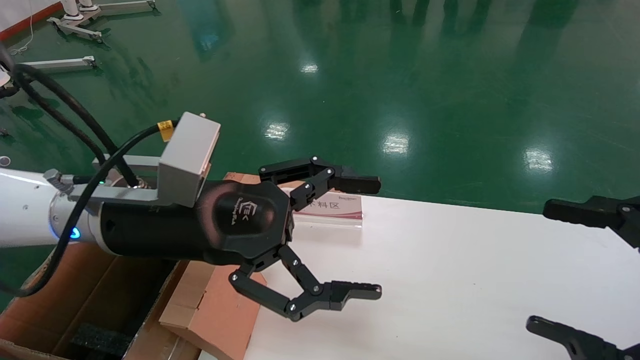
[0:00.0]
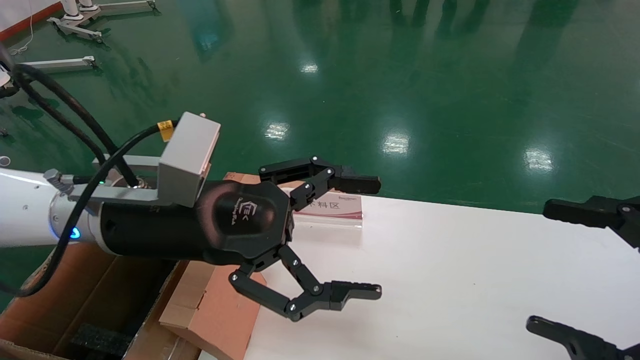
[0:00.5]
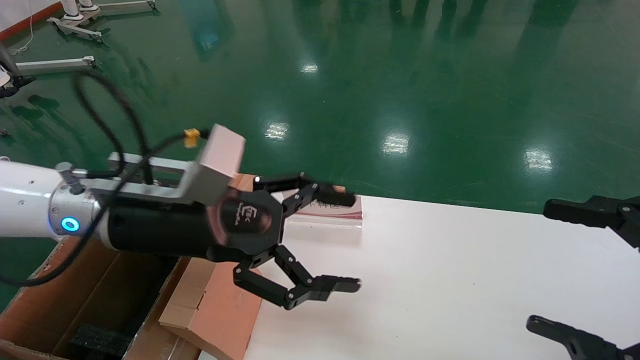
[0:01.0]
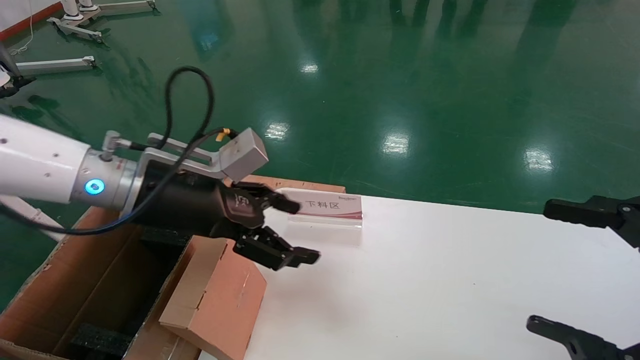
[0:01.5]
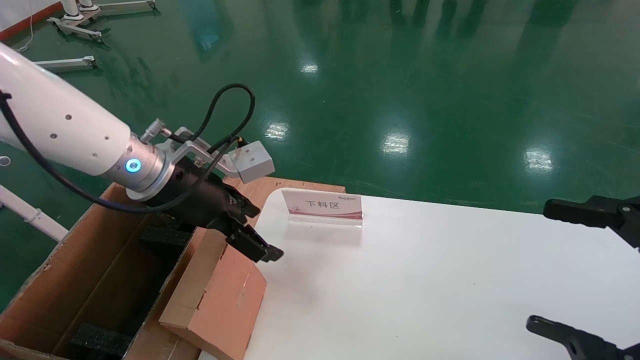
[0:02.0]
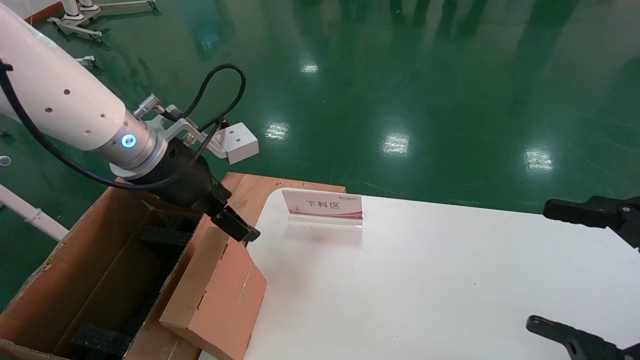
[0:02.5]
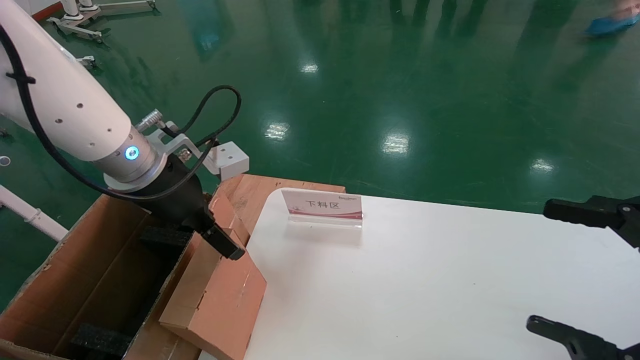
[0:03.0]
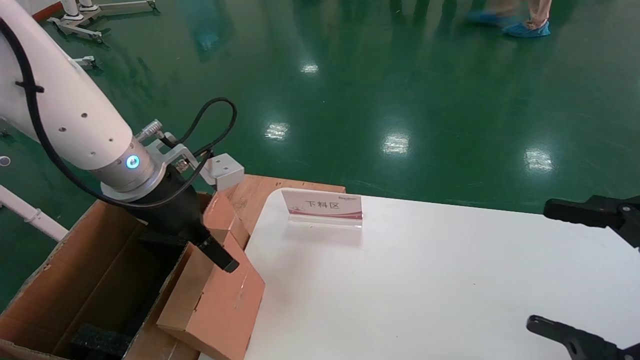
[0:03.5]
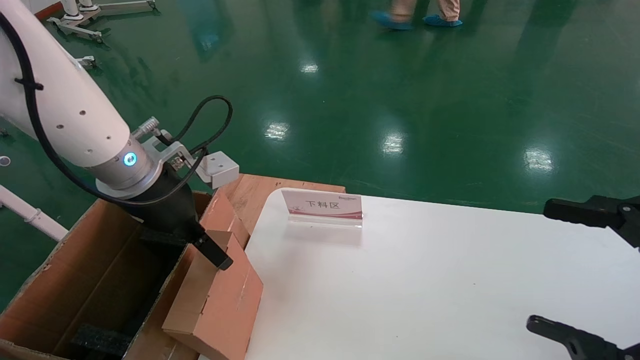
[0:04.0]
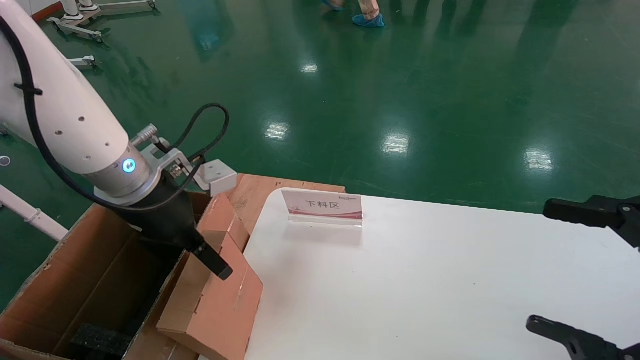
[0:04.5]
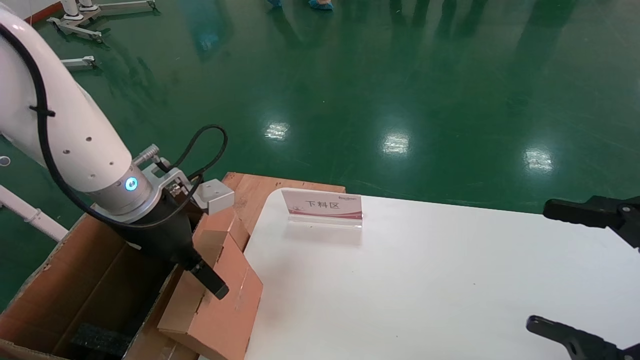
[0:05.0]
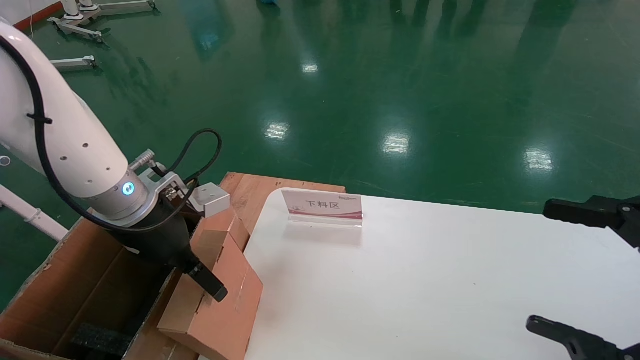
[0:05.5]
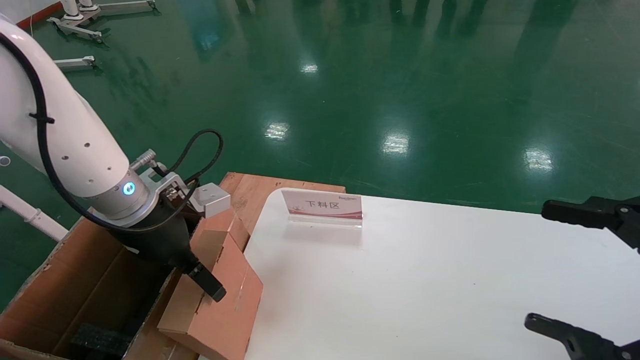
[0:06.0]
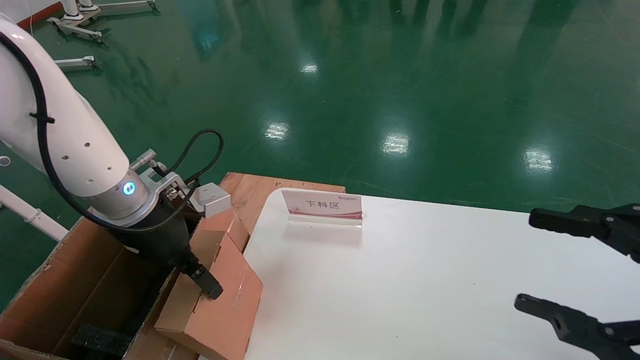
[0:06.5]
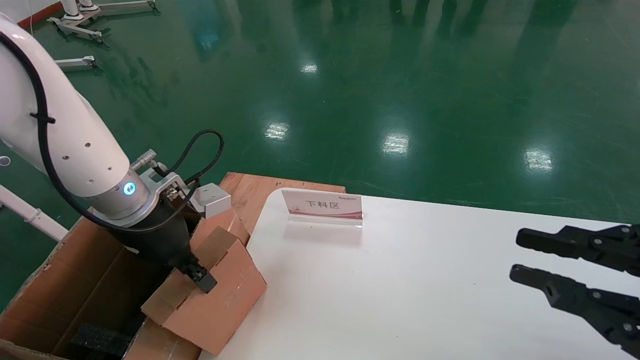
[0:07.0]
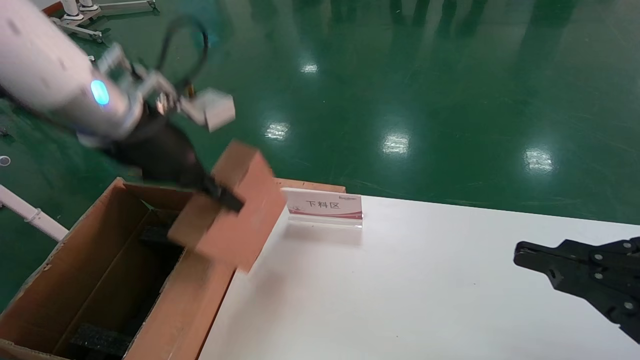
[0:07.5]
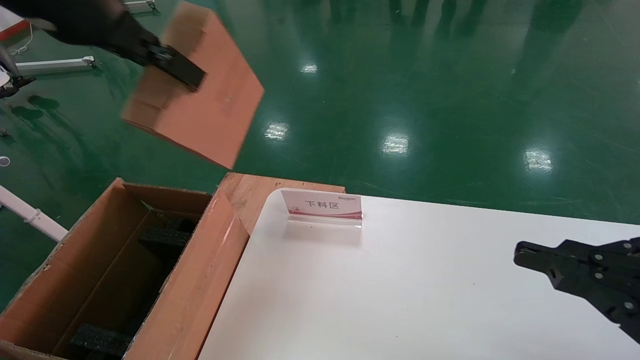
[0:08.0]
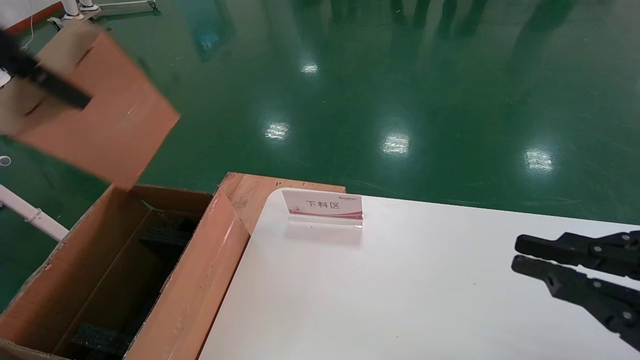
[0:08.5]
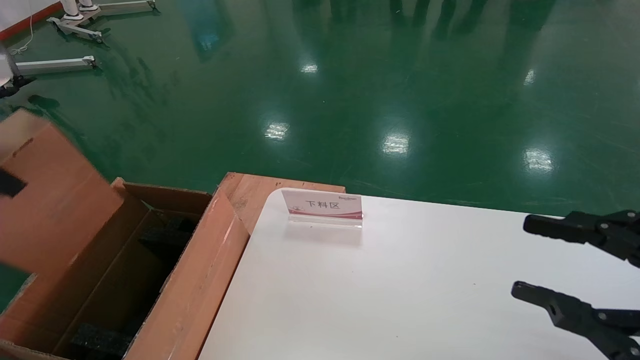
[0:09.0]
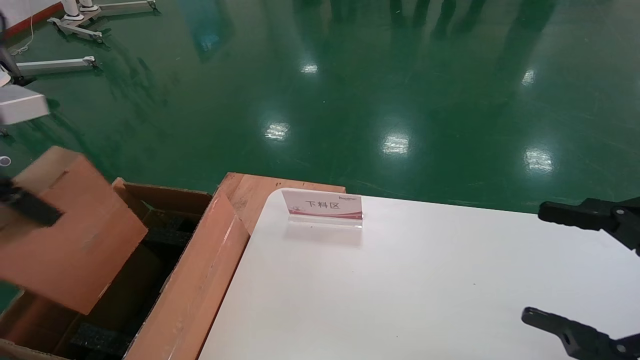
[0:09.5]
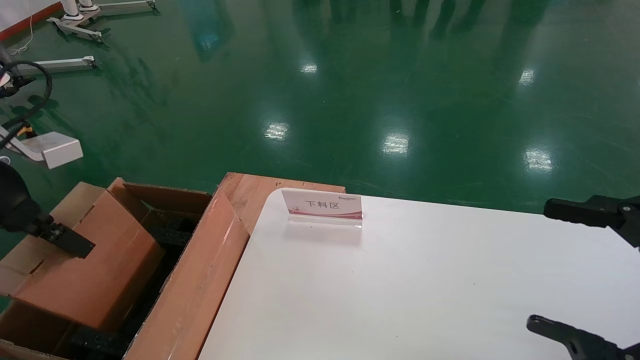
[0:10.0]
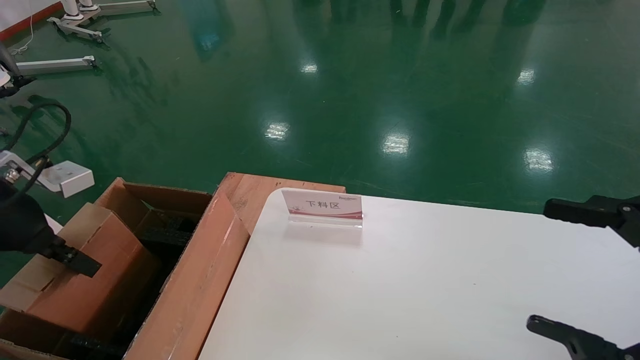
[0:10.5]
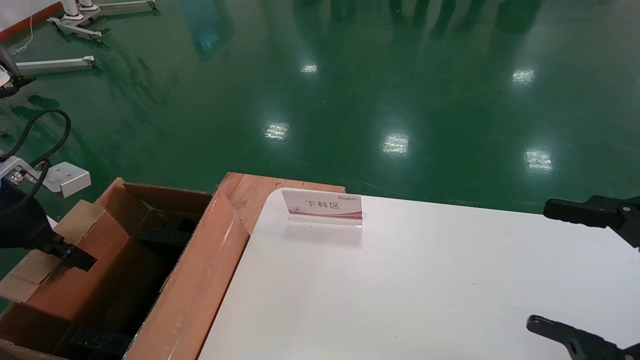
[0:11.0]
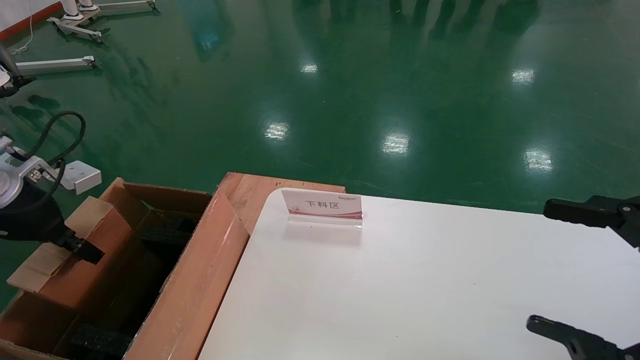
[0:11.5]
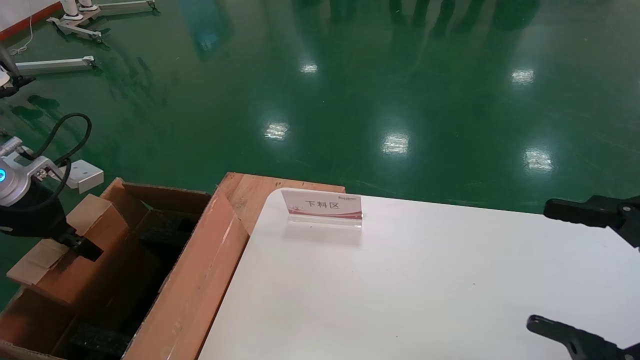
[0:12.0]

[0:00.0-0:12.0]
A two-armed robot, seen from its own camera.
Task of the whole recording: pick up the small cardboard box and load it into the large cardboard box.
Step, 0:01.5 to 0:06.5: Pick up the mouse and power cord box.
0:00.0 to 0:02.0: The left gripper goes about 10 cm forward.
0:04.0 to 0:06.0: The grippers move only a little.
0:06.0 to 0:08.0: The right gripper closes its fingers. The left gripper is displaced upward by roughly 25 cm, and closes.
0:08.0 to 0:10.0: The right gripper opens its fingers. The left gripper moves downward and to the left, approximately 20 cm.
0:10.0 to 0:12.0: The left gripper moves downward, forward and to the left, about 10 cm.

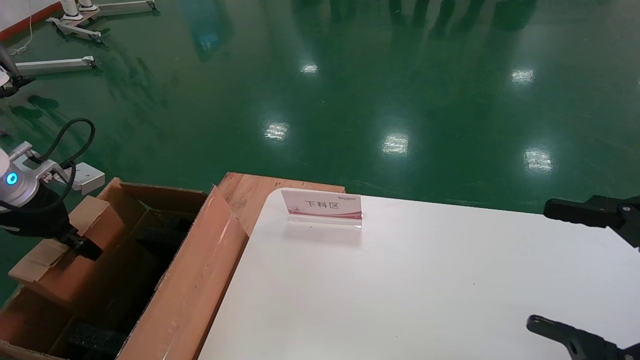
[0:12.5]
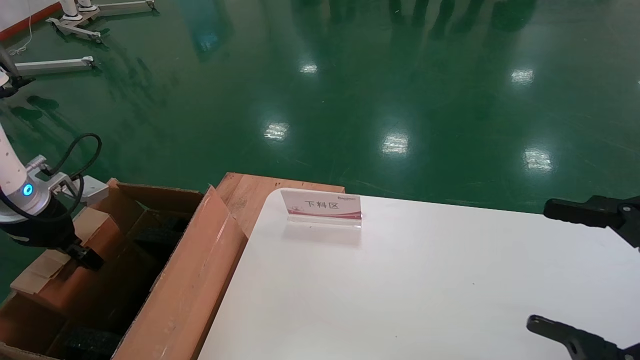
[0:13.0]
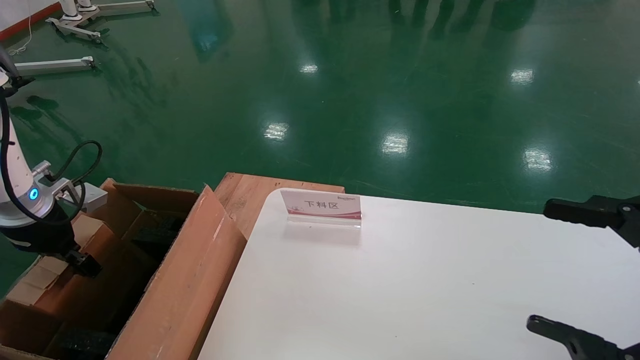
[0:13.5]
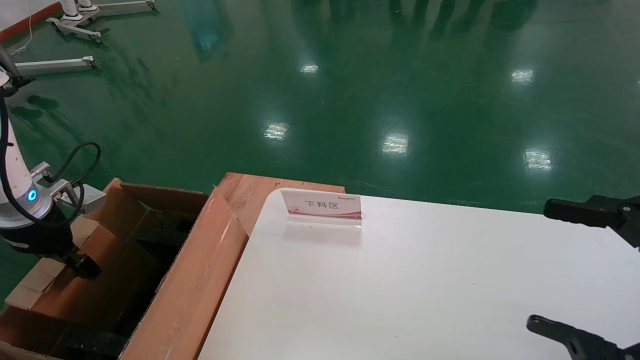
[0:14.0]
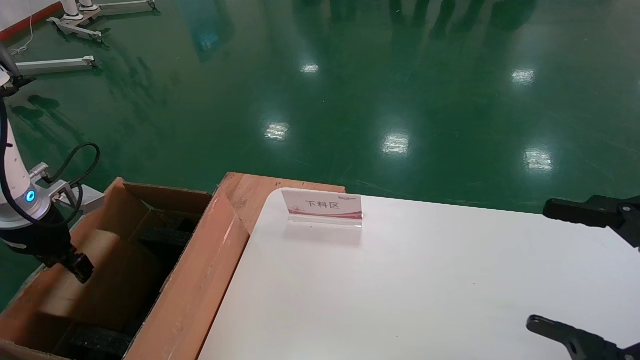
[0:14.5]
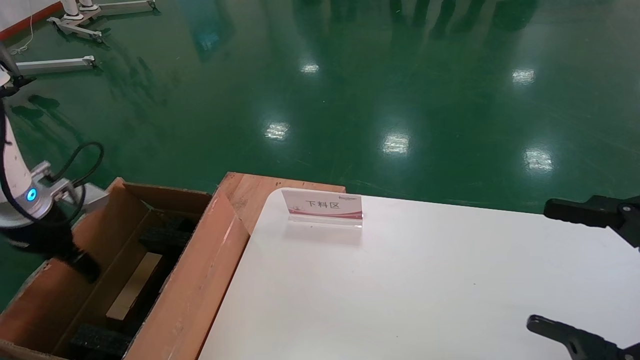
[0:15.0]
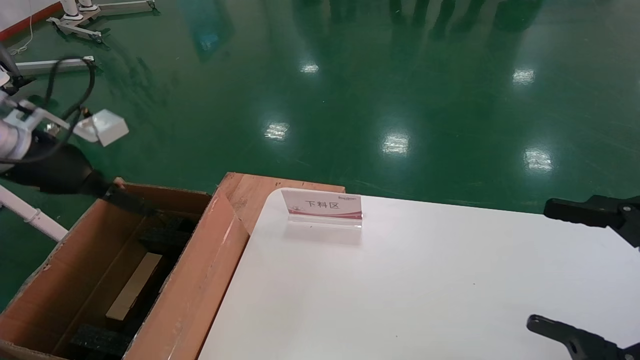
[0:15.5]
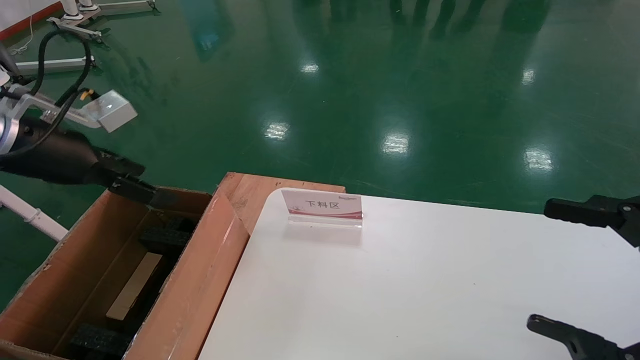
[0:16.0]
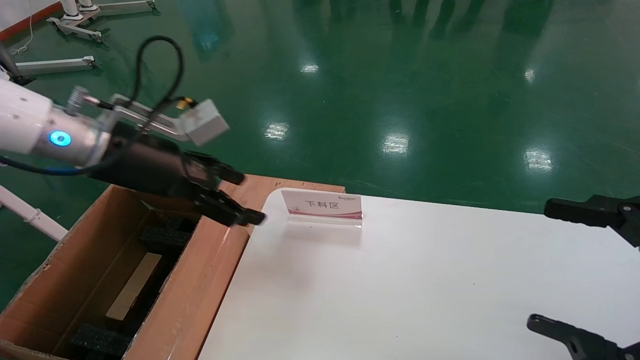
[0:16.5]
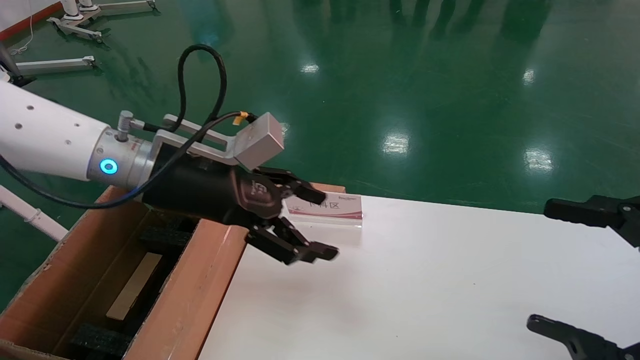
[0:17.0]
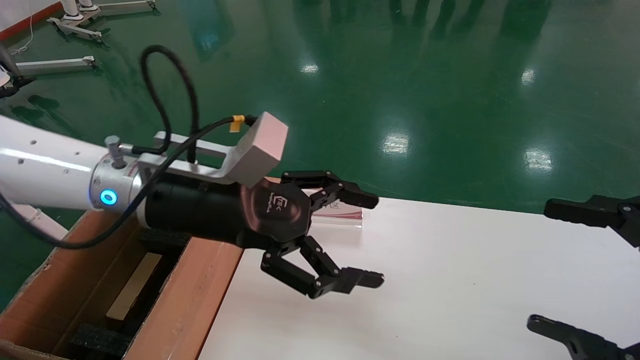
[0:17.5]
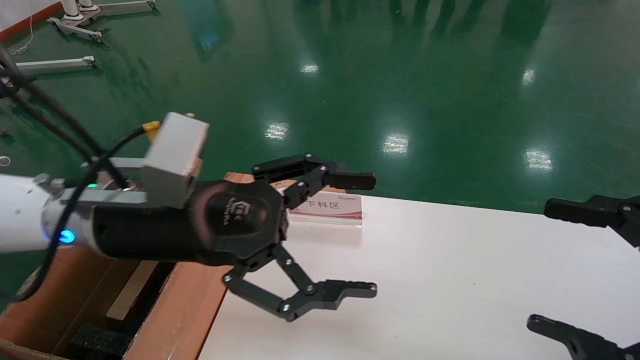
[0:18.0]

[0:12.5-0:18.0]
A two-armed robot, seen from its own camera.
Task of the whole recording: pick up the small cardboard box and load it into the large cardboard box.
Step, 0:12.5 to 0:14.5: Place the mouse and power cord box into the case.
0:12.5 to 0:14.5: The left gripper opens its fingers.
0:14.5 to 0:16.0: The left gripper goes approximately 15 cm upward and to the right, and opens its fingers.
0:16.0 to 0:18.0: The left gripper goes some 20 cm to the right.

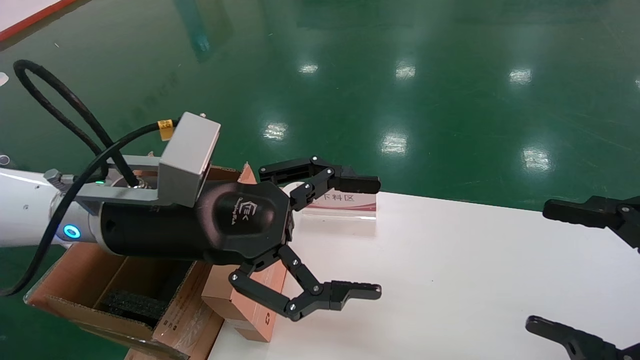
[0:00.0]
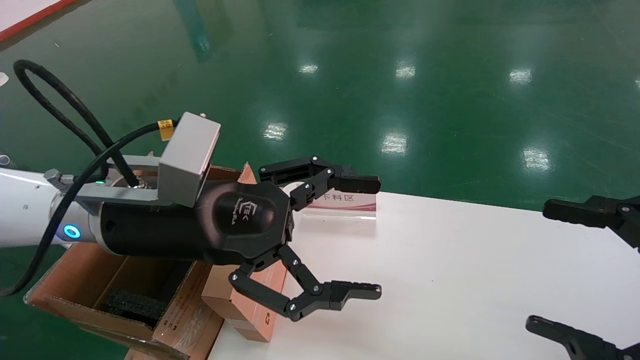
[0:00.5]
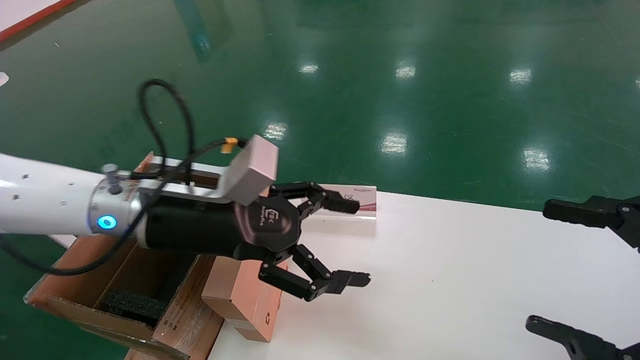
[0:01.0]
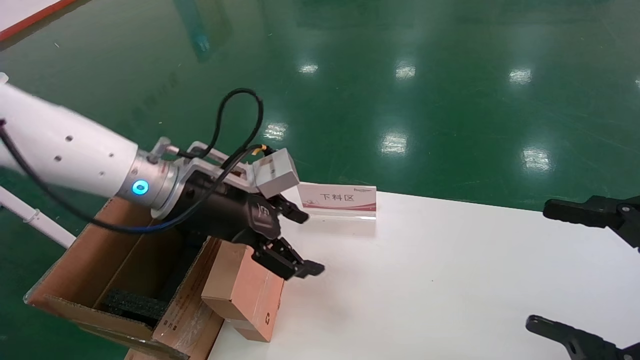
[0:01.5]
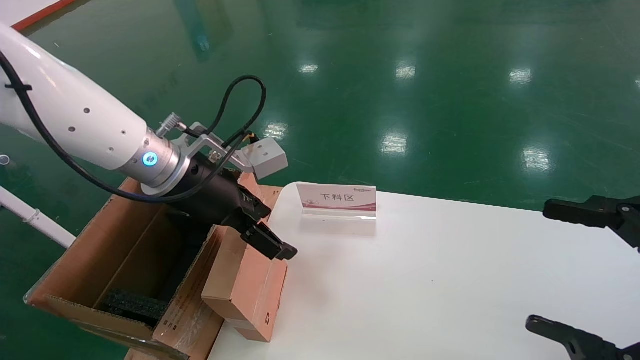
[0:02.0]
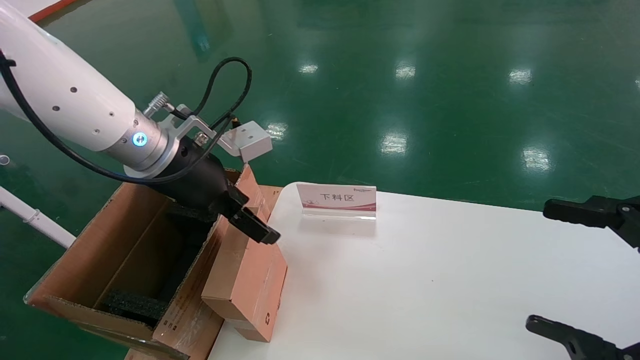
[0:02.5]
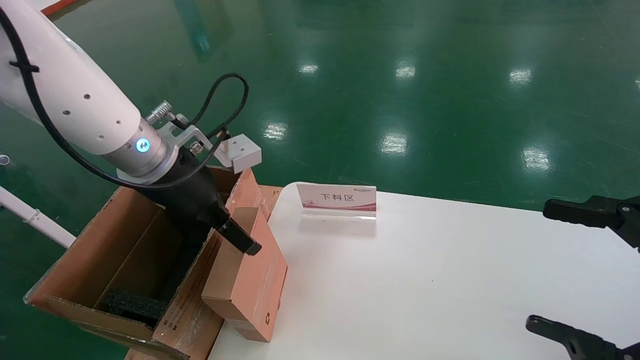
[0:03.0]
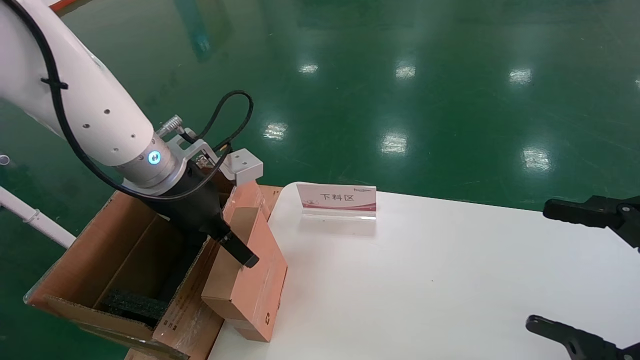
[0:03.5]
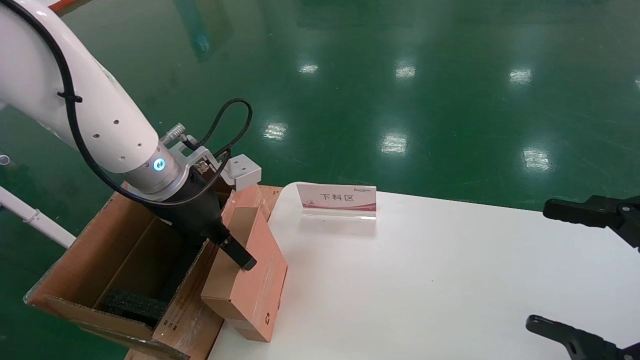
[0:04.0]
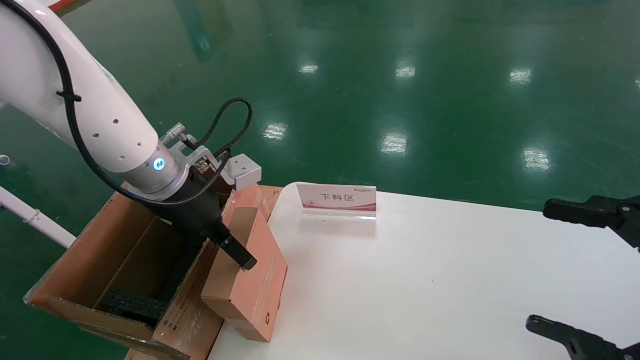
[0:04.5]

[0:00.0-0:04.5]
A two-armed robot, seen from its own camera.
Task of the whole recording: pick up the small cardboard box and load it into the large cardboard box.
0:00.0 to 0:02.0: The left gripper is displaced forward by approximately 10 cm.
